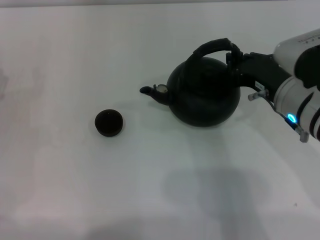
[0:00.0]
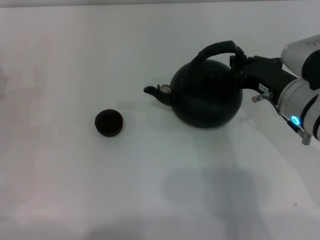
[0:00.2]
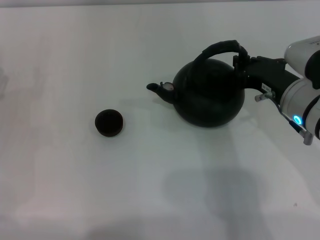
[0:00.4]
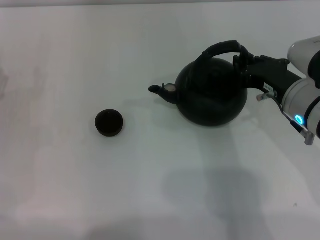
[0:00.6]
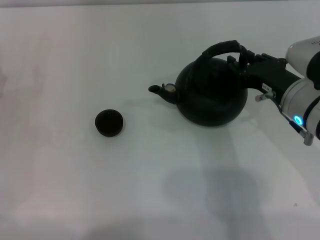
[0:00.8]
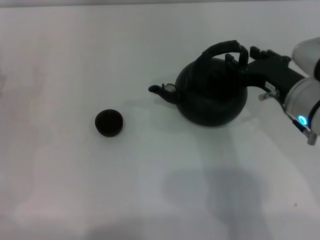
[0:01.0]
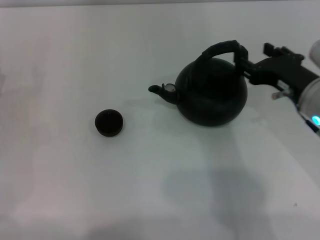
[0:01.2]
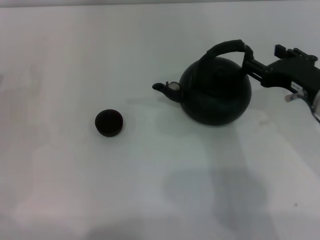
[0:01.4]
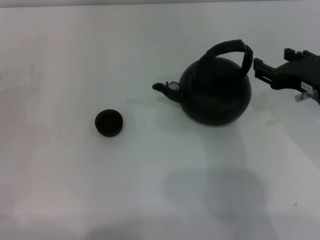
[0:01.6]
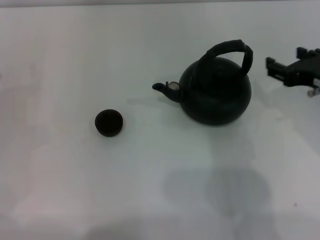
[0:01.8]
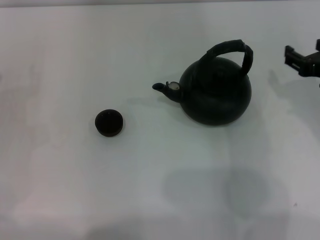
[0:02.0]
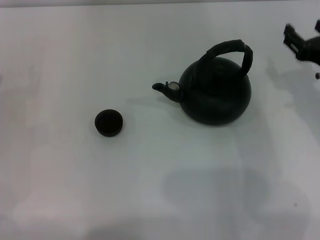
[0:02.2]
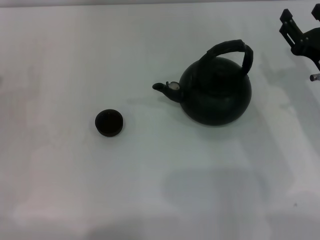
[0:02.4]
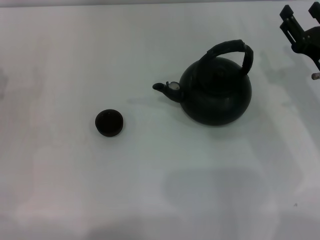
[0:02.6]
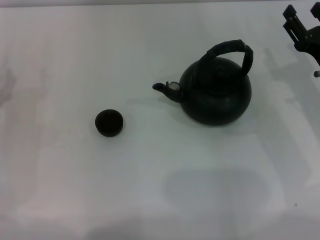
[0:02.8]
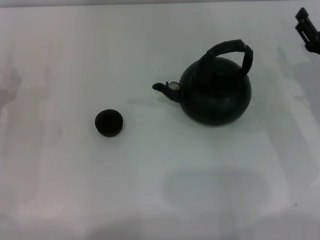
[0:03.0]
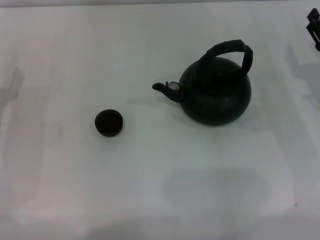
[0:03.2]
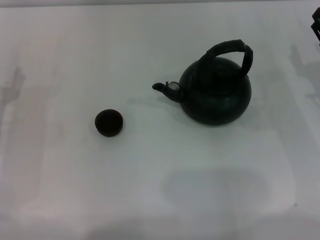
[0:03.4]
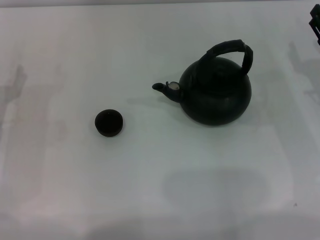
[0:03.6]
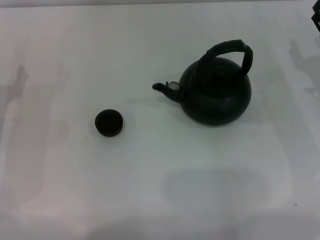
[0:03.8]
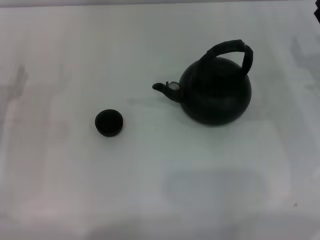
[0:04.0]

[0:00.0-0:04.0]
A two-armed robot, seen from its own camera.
Task of the whole recording: Grasp the handle of the teapot with one hand and pour tea into the teacup.
Step, 0:00.0 to 0:01.6: Put down the teapot with the right gripper.
0:00.0 to 0:01.4: The right gripper opens up.
0:01.4 to 0:02.6: The right gripper moves downward, about 5 cm.
0:02.6 to 0:04.0: The right gripper ends up some 5 cm from where it was.
